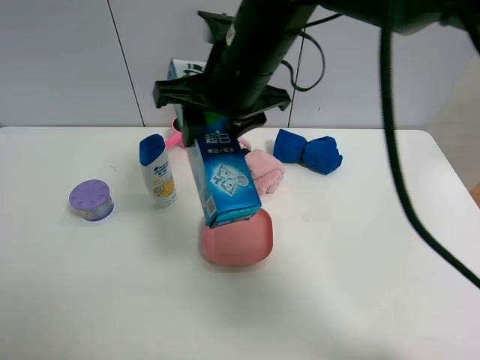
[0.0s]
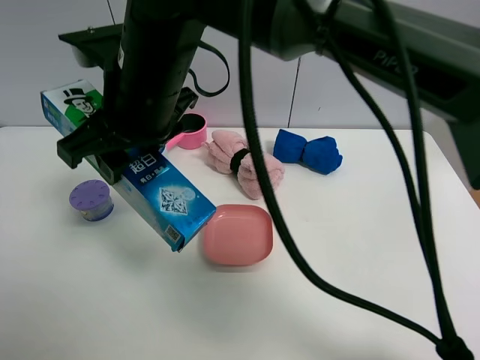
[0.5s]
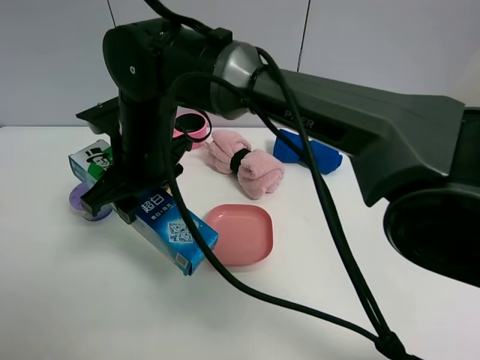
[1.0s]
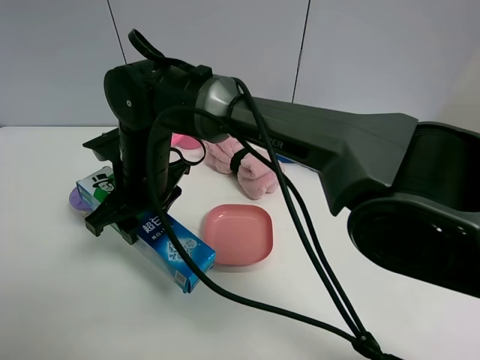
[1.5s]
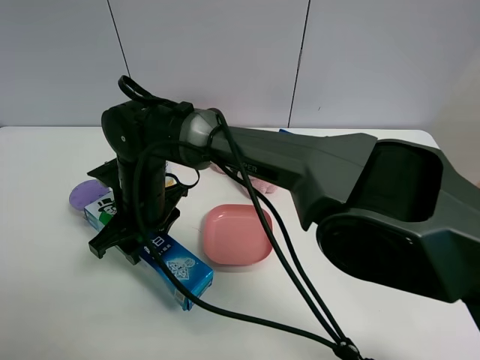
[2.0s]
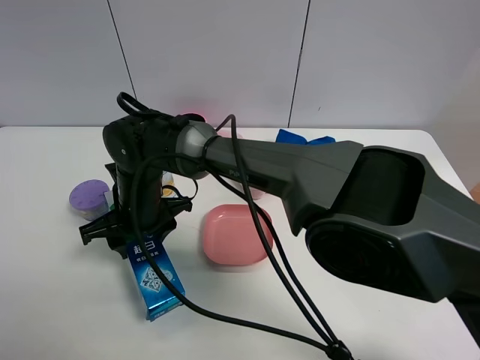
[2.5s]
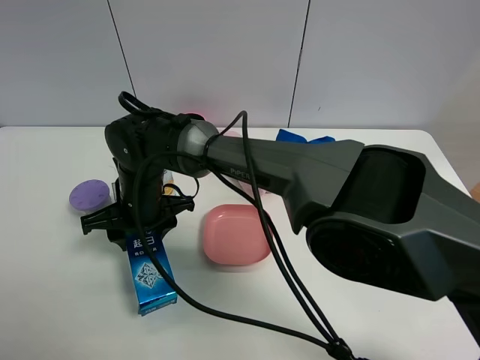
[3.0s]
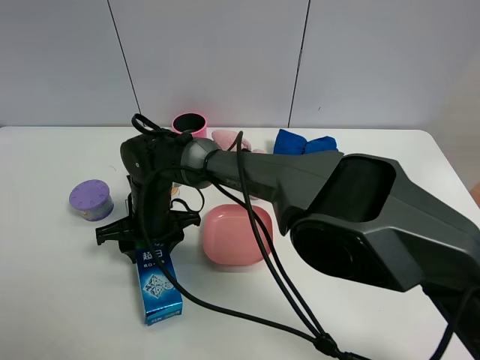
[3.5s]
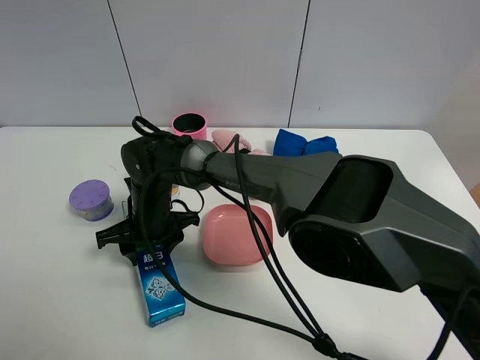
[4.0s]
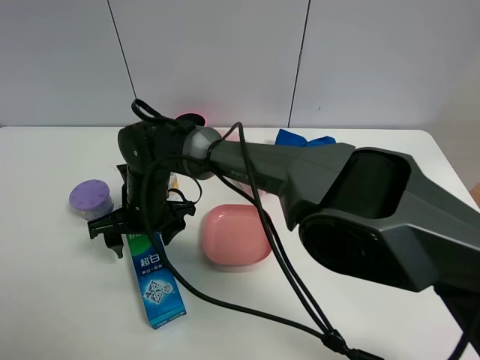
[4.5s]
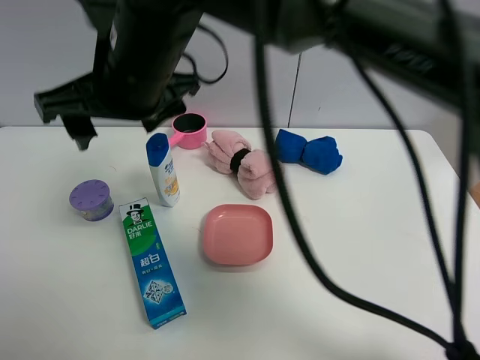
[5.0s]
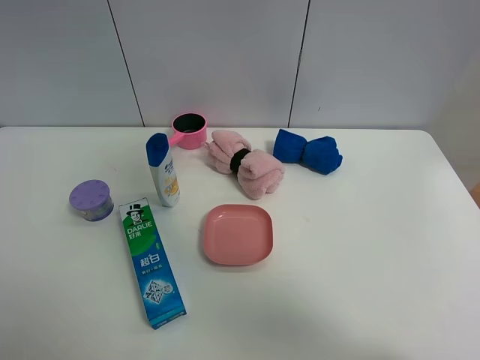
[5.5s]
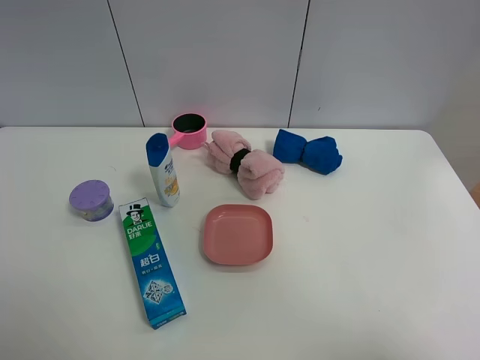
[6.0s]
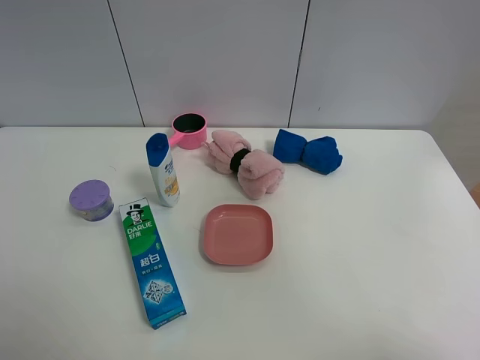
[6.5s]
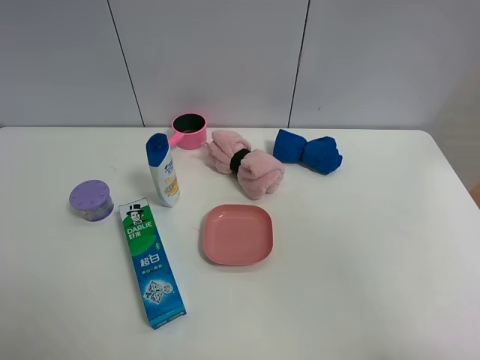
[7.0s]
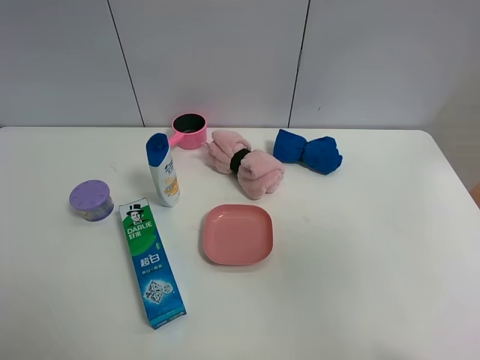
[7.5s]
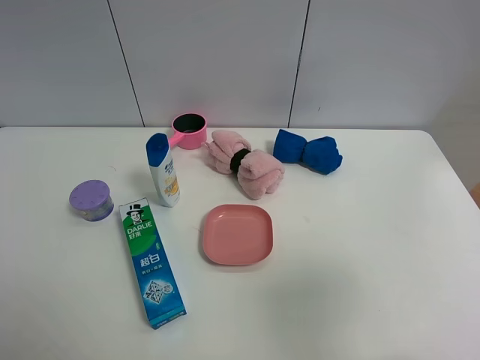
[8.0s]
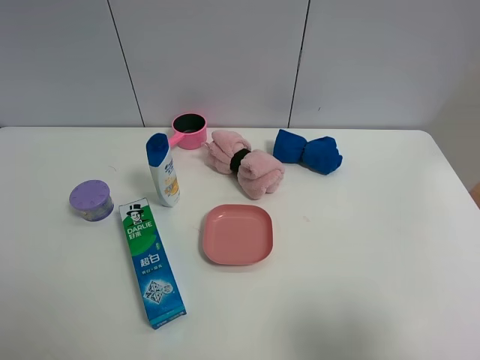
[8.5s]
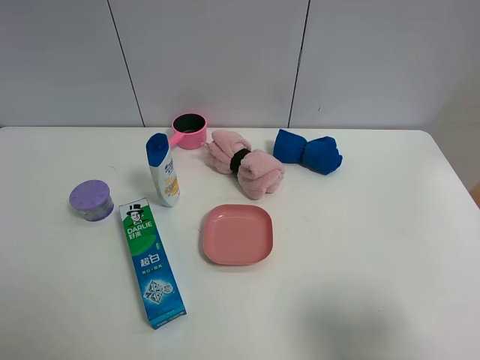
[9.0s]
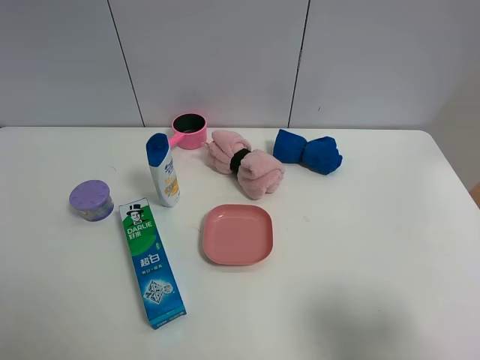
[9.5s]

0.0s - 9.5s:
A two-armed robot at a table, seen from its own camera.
Task of the whole recording: the gripper move the object.
Step, 0.0s - 4.5s: Place the toothpaste on the table with the right gripper.
0.0s - 2.0s: The right gripper travels downward and to the left by approximately 20 cm.
2.0s - 4.0s: The right gripper moves downward, approximately 5 cm.
4.0s - 5.5s: The right gripper travels upward and to the right by some 50 cm, and opens.
5.5s - 7.5s: The right gripper travels to the right and backward by about 25 cm.
7.5s - 9.5s: The right gripper shifts roughly 20 cm downward.

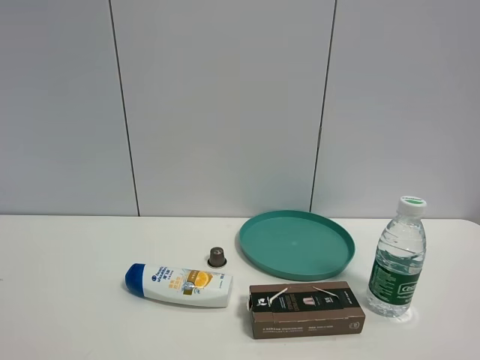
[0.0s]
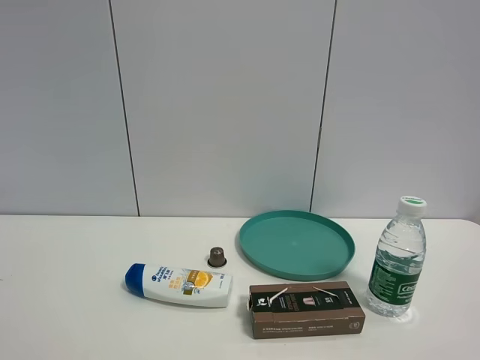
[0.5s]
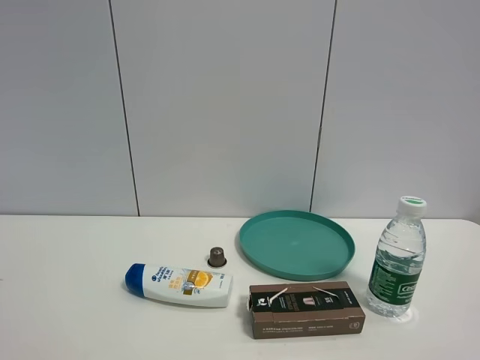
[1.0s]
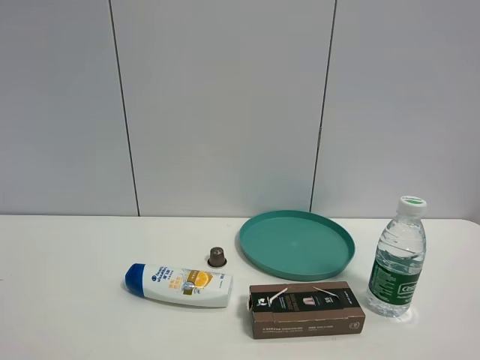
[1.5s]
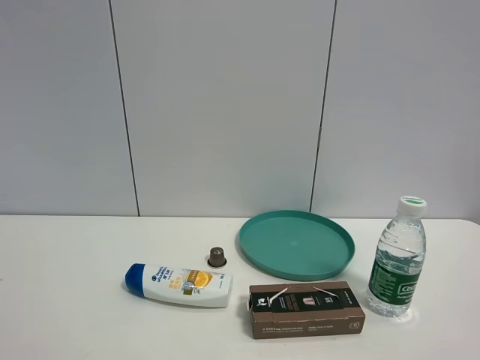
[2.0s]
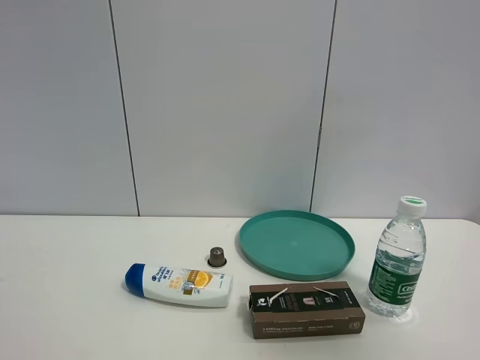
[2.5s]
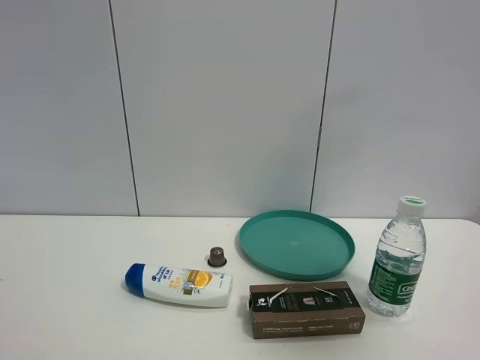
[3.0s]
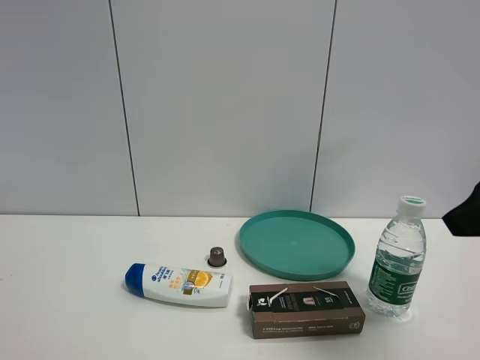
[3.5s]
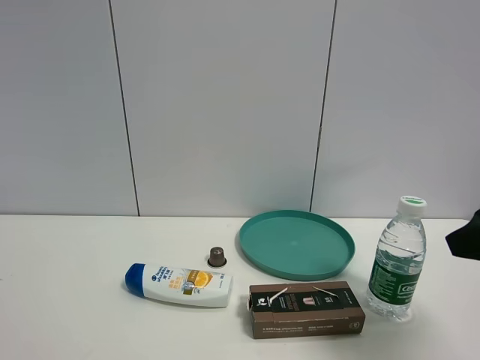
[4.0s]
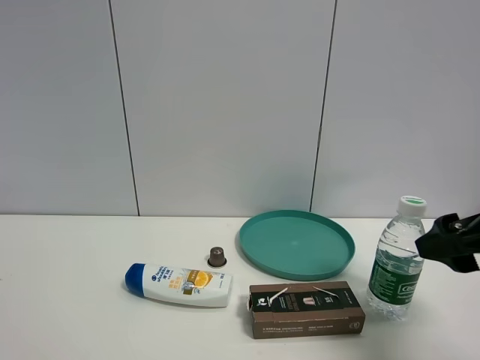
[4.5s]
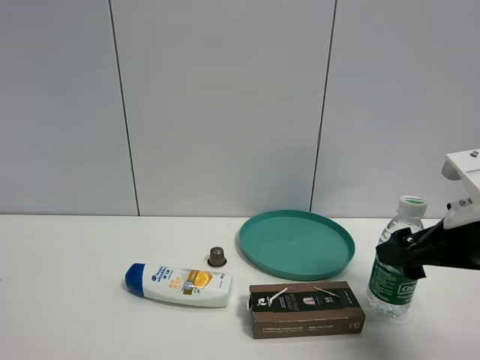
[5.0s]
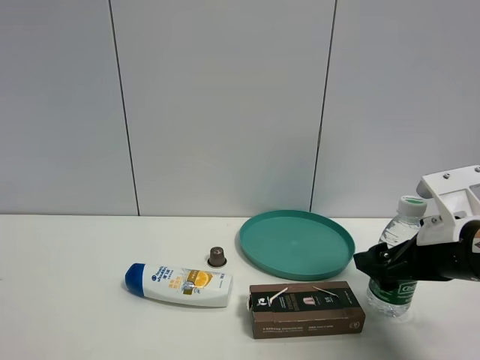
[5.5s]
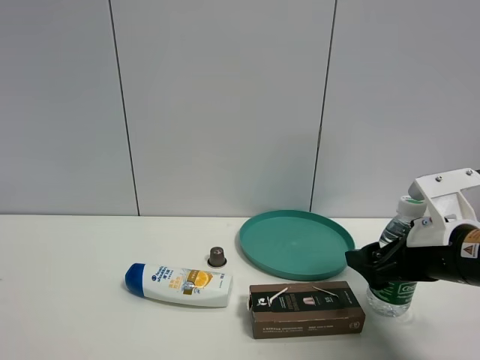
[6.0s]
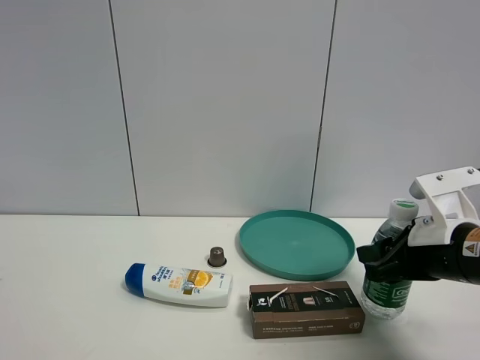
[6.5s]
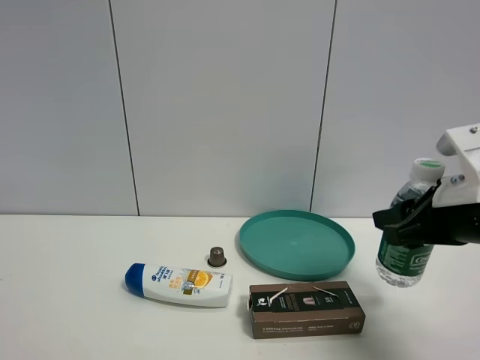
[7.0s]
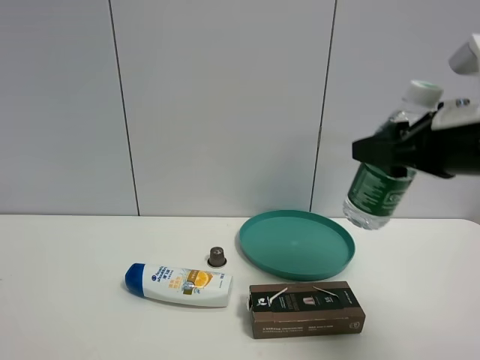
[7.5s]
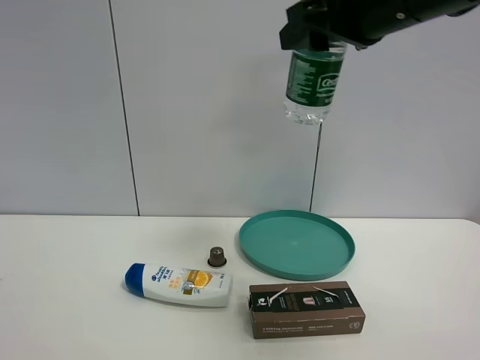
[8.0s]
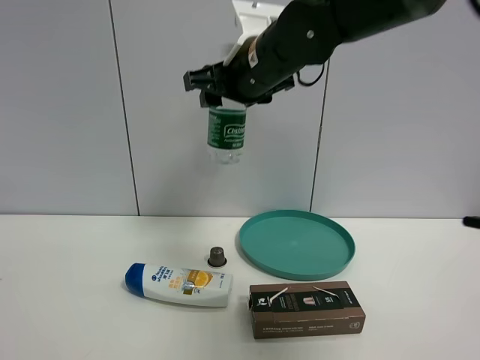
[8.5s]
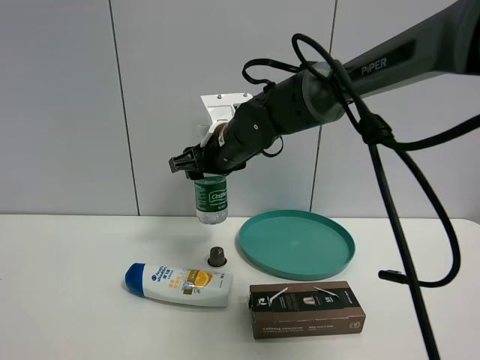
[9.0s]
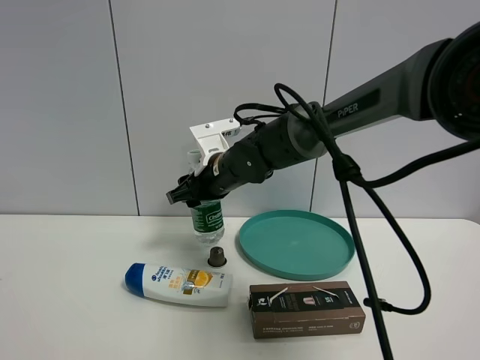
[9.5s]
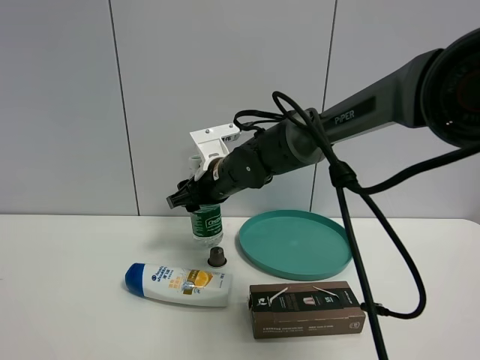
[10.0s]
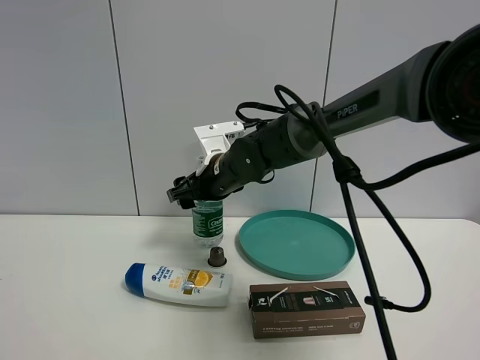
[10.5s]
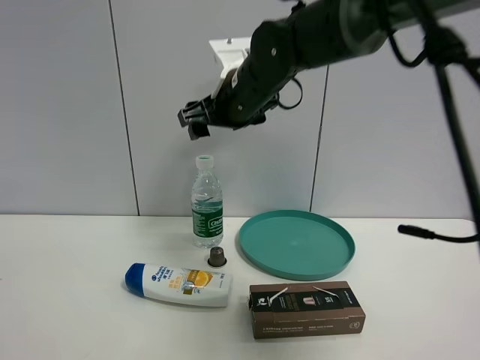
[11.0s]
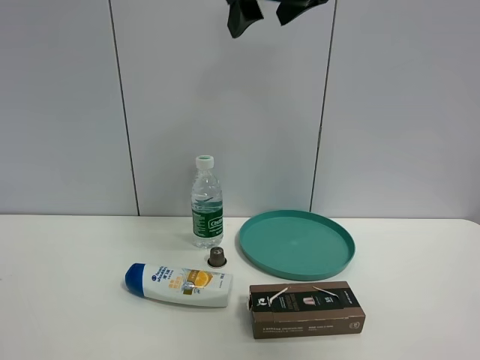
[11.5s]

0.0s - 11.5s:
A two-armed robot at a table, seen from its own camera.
Task of the whole recording: the gripper move the object.
0.0s - 2.0s: The two grippers keep their place.
2.0s - 4.0s: The right gripper shifts roughly 20 cm forward, and reaches approximately 15 cm upward, then returns.
4.0s - 6.0s: The right gripper travels downward and forward by some 15 cm.
6.0s - 7.5s: The right gripper shifts roughly 15 cm upward, and closes its fingers.
7.5s - 9.5s: The right gripper is displaced to the left, forward and downward by some 35 cm.
9.5s - 11.5s: The right gripper is displaced upward by some 30 cm, and opens up.

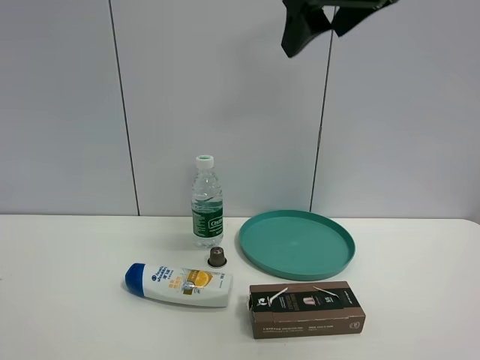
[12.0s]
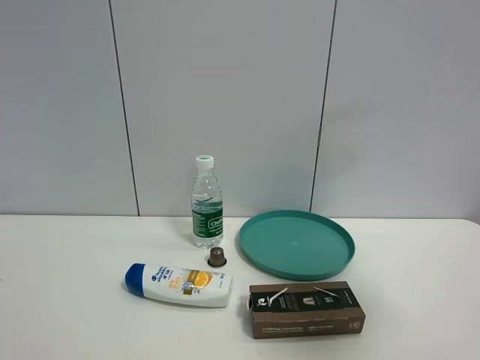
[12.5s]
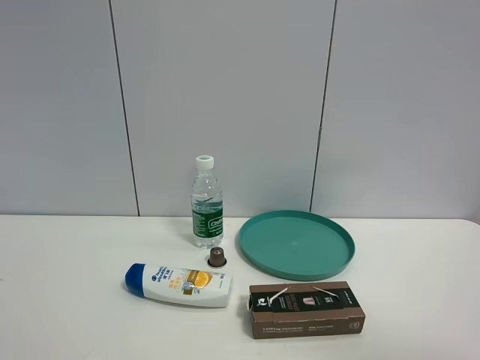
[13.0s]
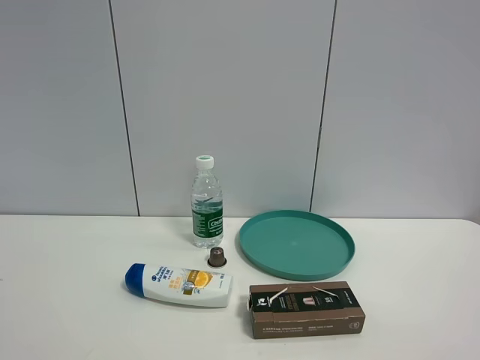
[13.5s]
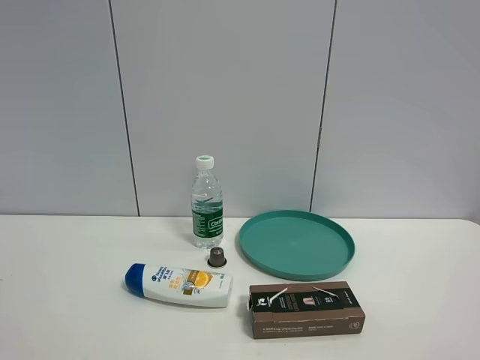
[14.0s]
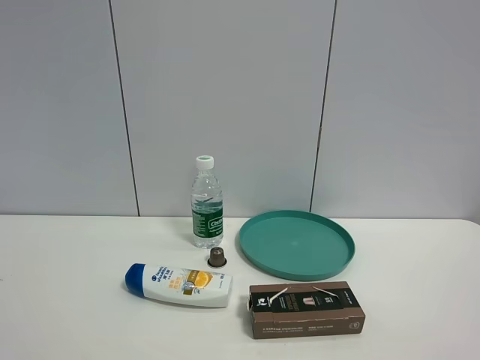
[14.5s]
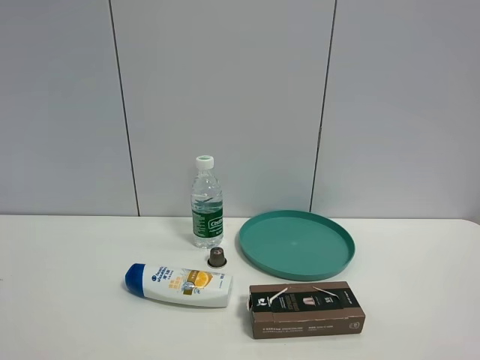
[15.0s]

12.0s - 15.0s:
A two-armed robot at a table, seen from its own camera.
Task of the whole recording: the gripper move the object.
12.0s - 13.5s: The right gripper heads backward, to the right and downward, covering approximately 35 cm.
13.5s - 15.0s: The two grippers keep their place.

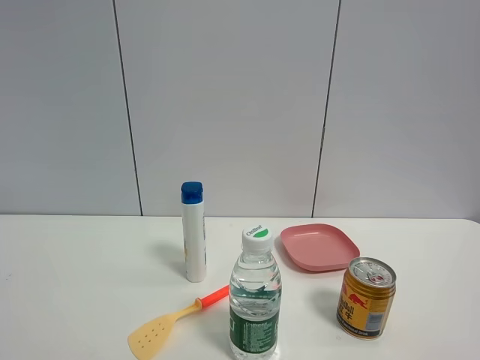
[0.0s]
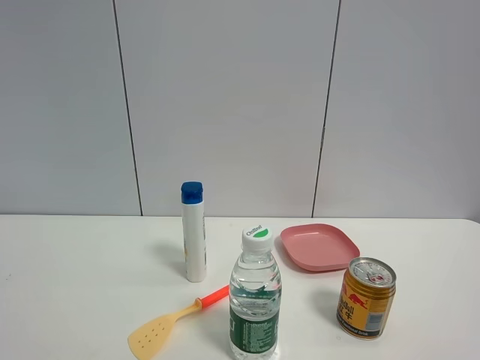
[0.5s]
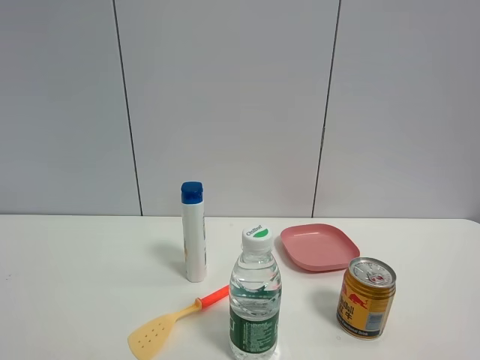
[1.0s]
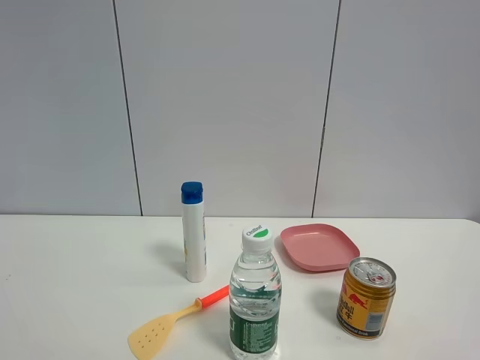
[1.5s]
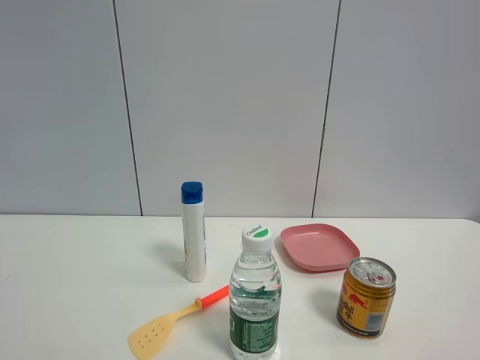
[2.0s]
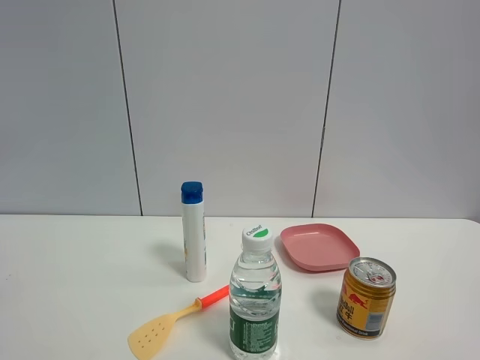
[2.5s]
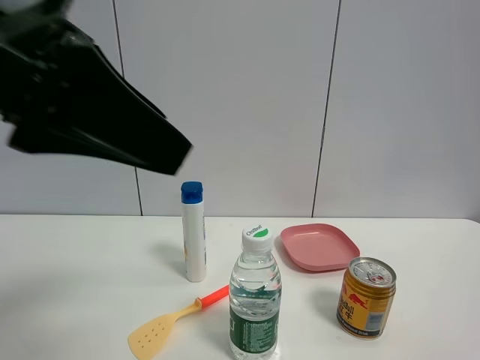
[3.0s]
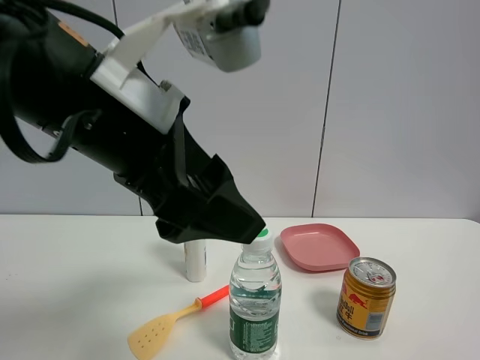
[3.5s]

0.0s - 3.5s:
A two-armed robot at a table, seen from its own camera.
Task of the whole recording: the gripper move the object.
2.0s - 3.5s: The left gripper is displaced to the right, forward and downward by roughly 30 cm.
